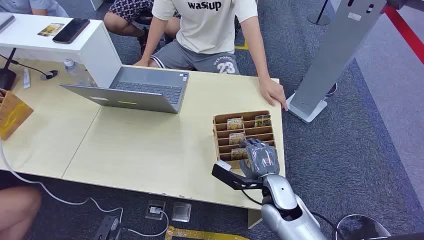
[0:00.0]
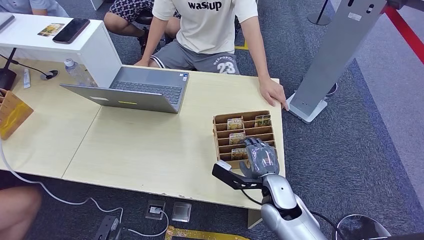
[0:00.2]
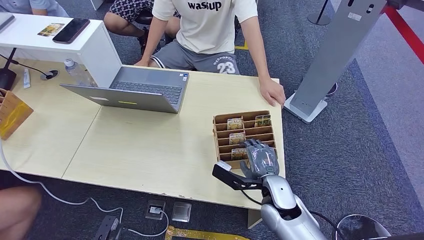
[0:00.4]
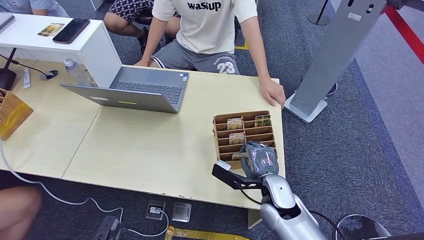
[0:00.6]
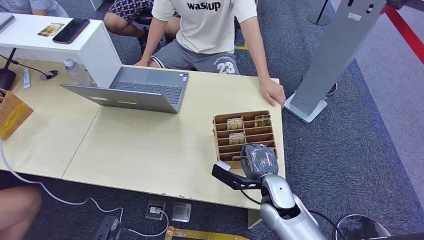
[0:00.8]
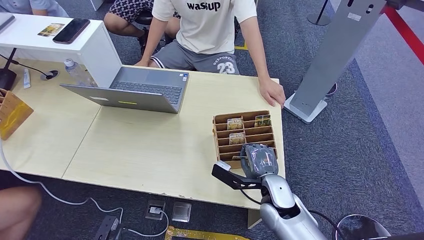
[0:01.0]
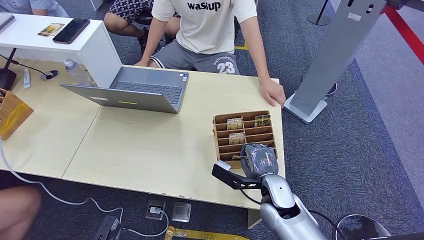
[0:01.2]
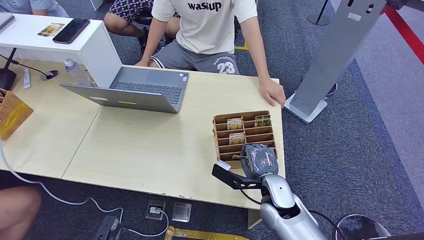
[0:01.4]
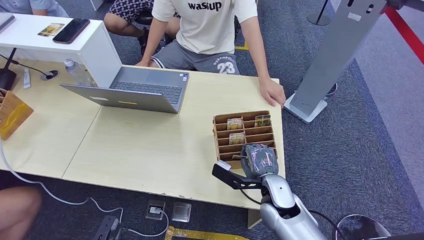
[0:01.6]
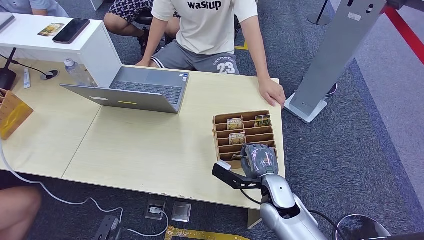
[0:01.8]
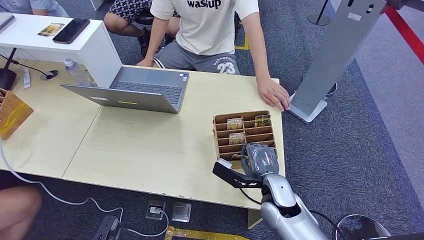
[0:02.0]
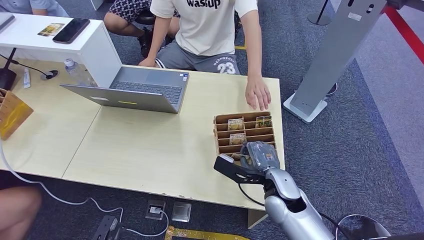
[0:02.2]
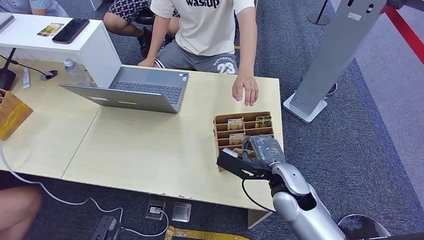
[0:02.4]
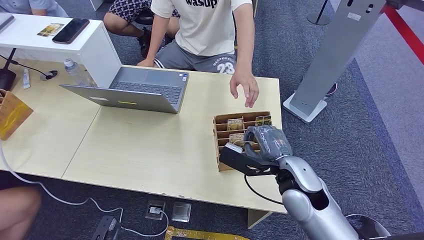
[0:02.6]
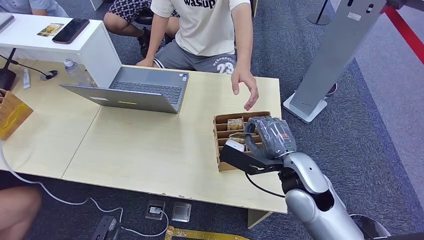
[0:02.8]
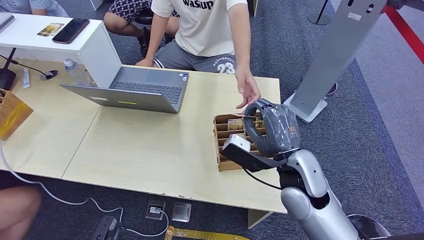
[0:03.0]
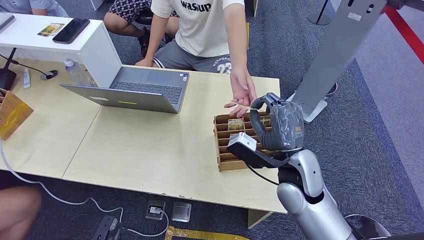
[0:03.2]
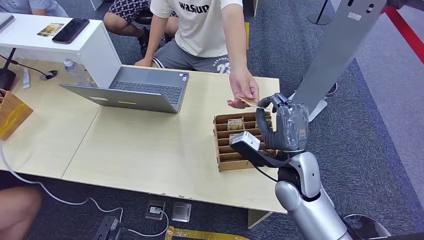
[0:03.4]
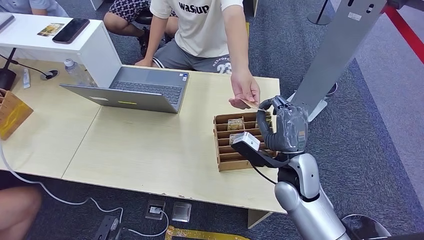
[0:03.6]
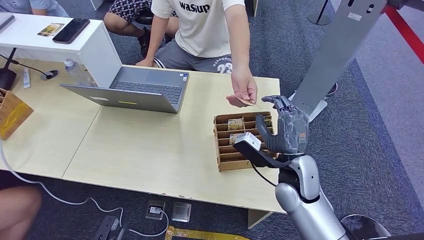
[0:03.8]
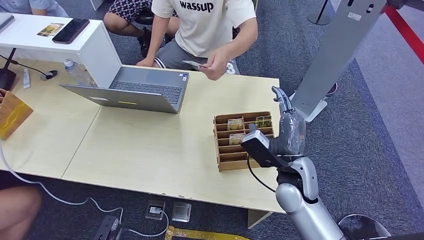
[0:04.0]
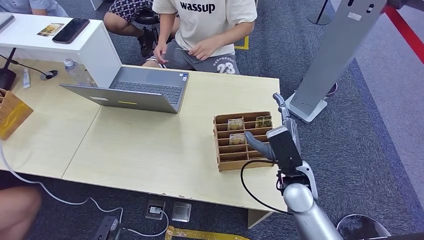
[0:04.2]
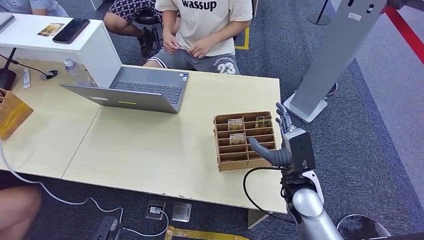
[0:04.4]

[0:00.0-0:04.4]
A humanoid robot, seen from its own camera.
Step, 0:00.0 to 0:02.6: Pick up the key card from the card box.
Step, 0:03.0 to 0:04.4: Hand the key card to the target.
0:01.4 to 0:03.0: The right hand travels upward by roughly 15 cm.
0:03.0 to 0:04.4: The right hand is displaced downward by some 10 cm.

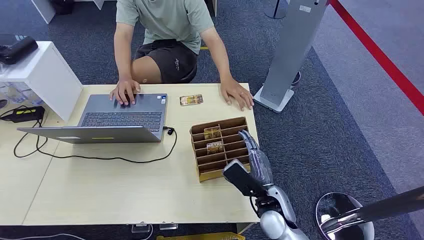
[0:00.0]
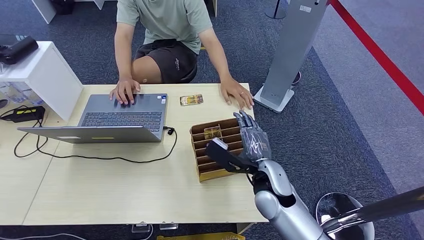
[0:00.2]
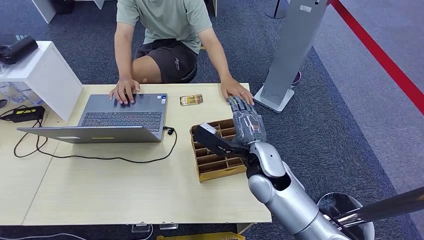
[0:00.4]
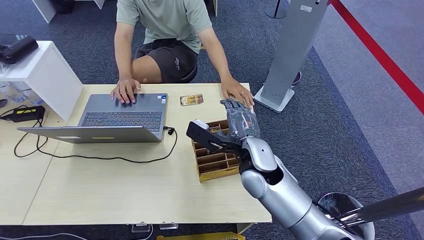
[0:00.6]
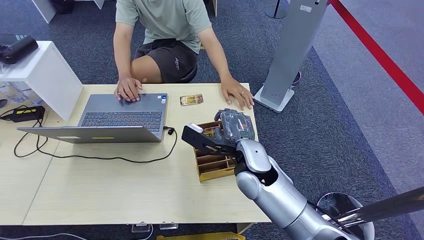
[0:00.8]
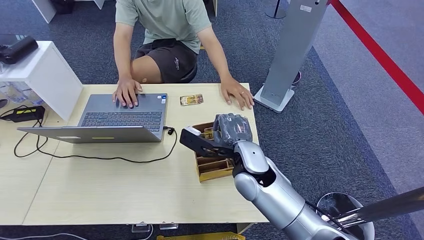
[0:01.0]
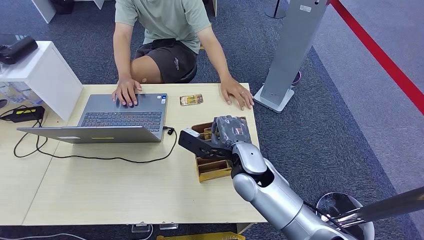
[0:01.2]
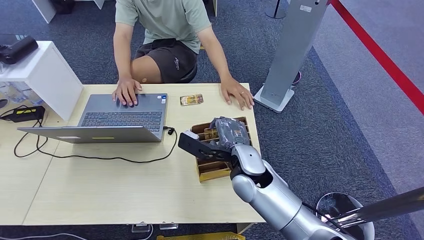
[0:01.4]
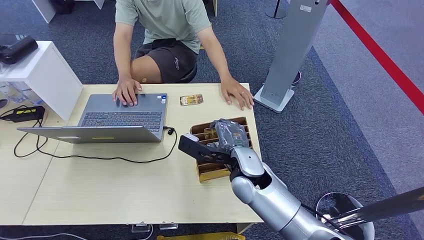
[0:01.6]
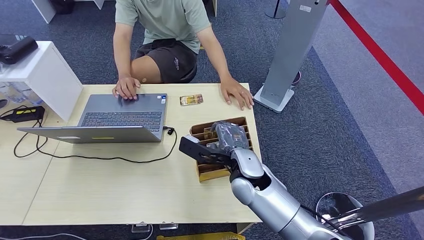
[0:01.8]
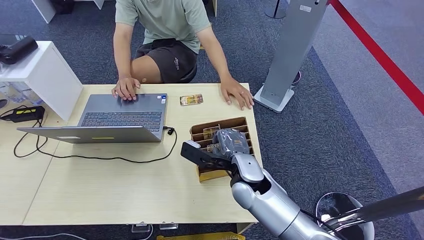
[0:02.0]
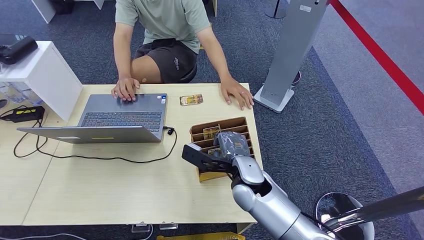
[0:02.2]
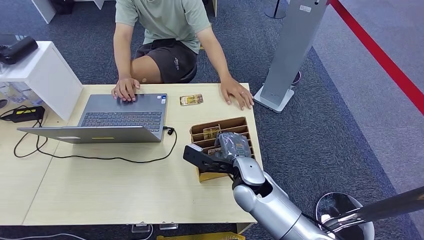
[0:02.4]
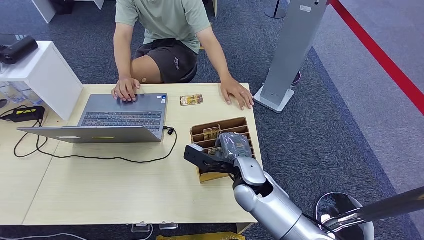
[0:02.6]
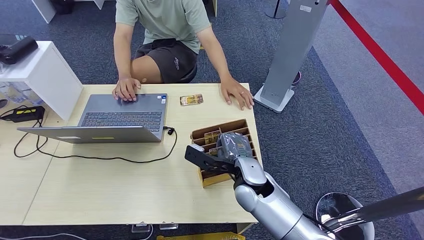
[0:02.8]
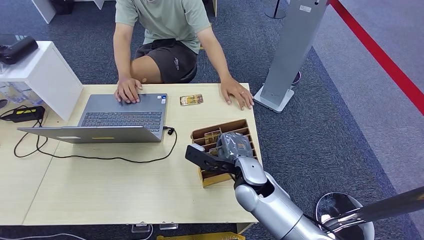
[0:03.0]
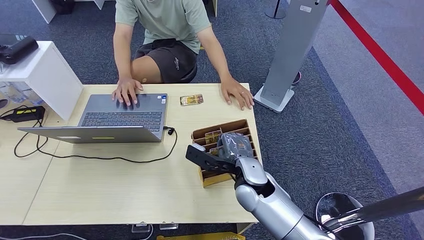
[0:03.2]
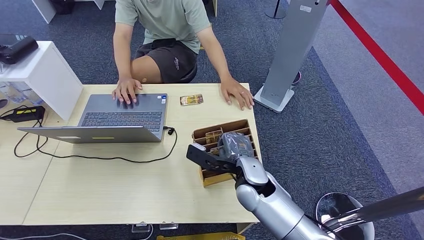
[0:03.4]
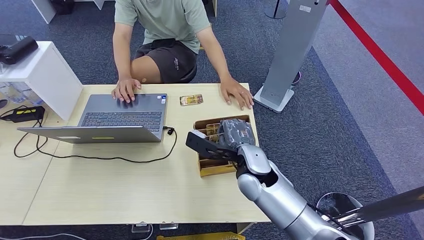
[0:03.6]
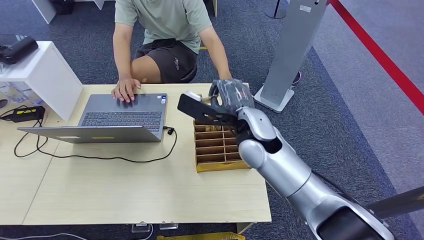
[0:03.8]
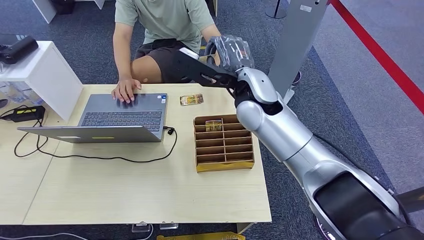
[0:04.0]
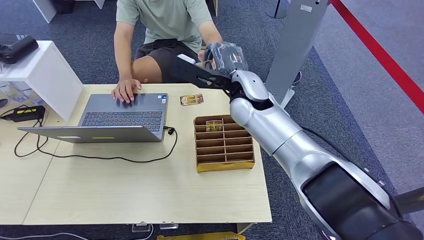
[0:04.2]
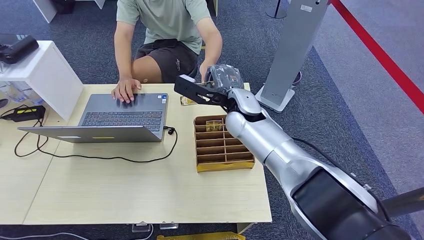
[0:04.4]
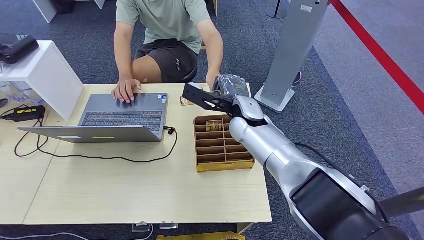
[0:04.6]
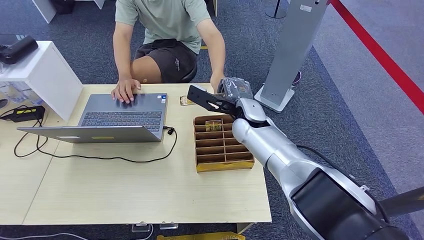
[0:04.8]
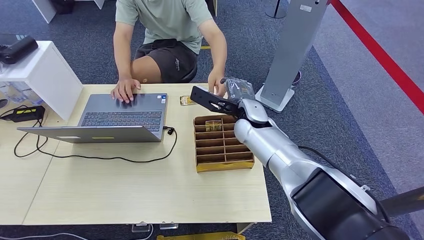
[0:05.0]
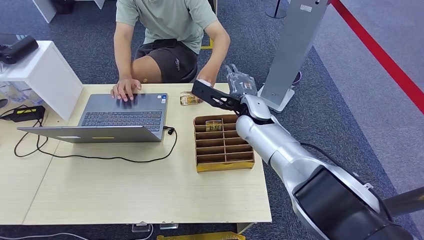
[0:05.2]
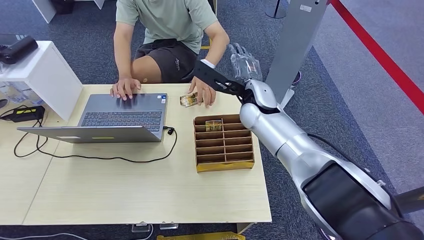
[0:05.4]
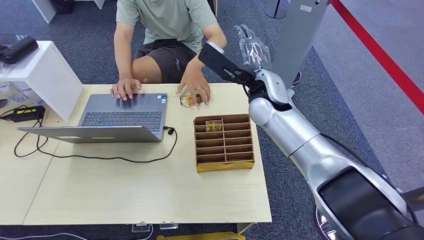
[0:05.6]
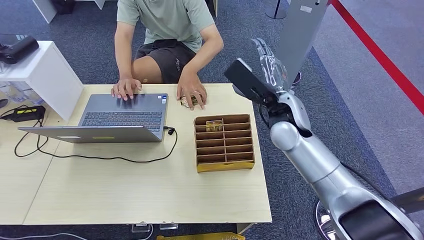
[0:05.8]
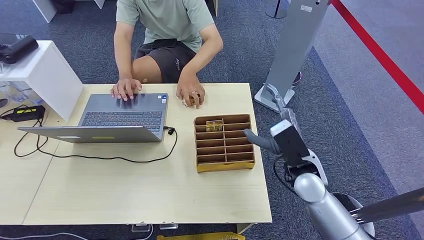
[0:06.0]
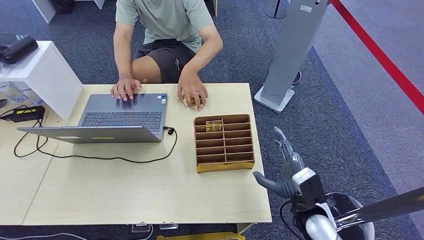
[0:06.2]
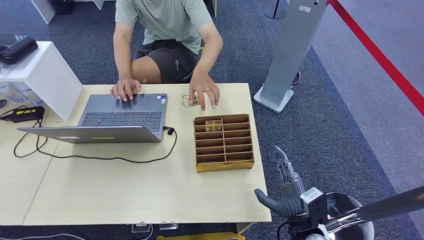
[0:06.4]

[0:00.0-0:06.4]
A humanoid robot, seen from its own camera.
Step, 0:00.0 to 0:03.6: Pick up the key card from the card box.
Step, 0:03.8 to 0:06.4: Hand the key card to the target.
0:01.6 to 0:03.2: There are only small adjustments of the hands.
0:03.2 to 0:04.8: The right hand heads forward and upward, covering some 15 cm.
0:04.8 to 0:06.4: The right hand goes about 35 cm backward, to the right and downward.
